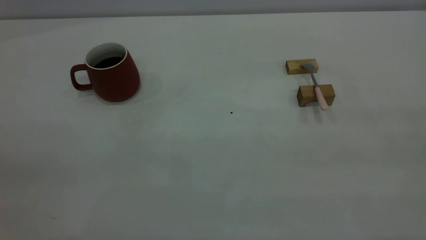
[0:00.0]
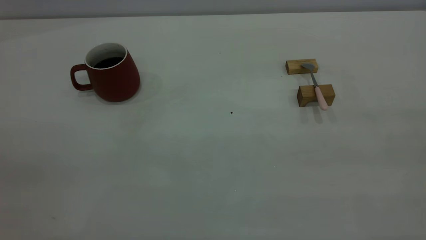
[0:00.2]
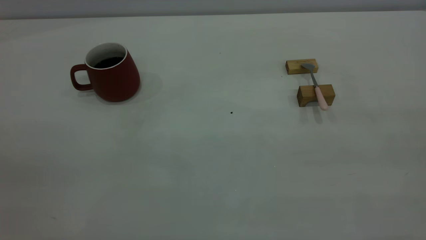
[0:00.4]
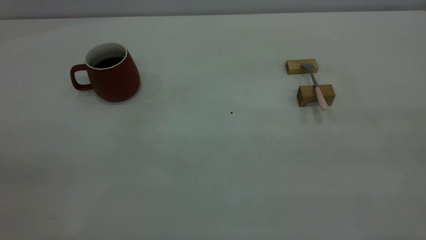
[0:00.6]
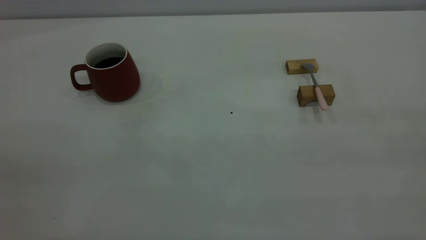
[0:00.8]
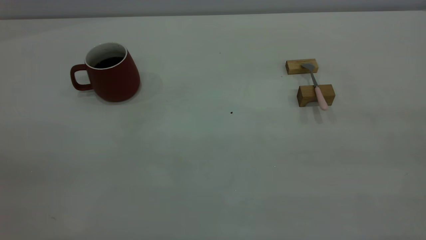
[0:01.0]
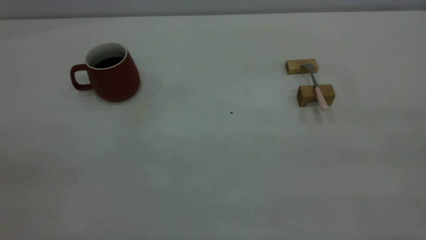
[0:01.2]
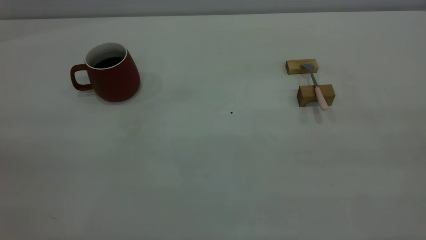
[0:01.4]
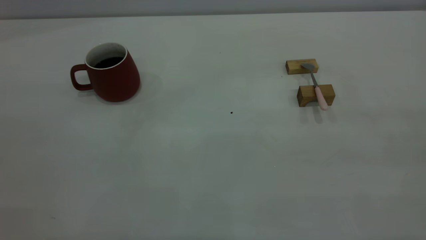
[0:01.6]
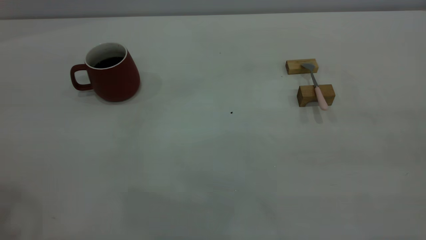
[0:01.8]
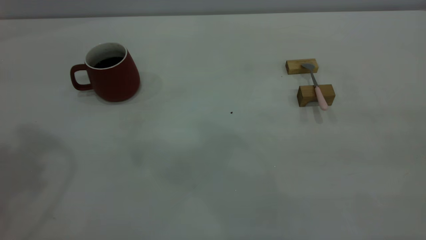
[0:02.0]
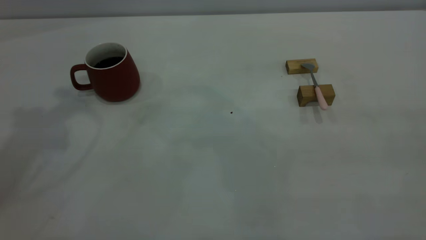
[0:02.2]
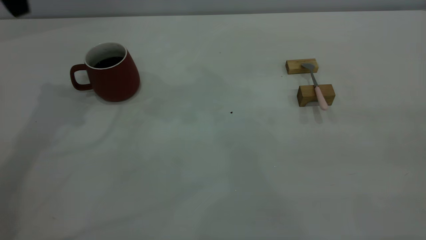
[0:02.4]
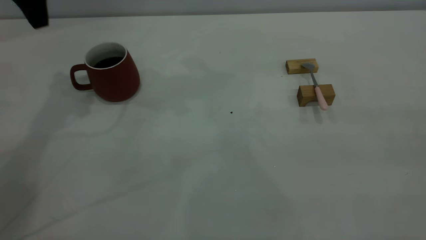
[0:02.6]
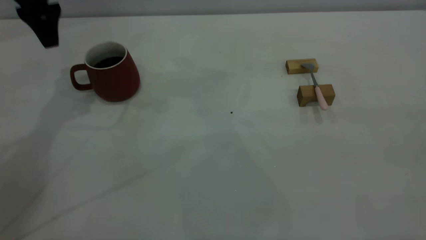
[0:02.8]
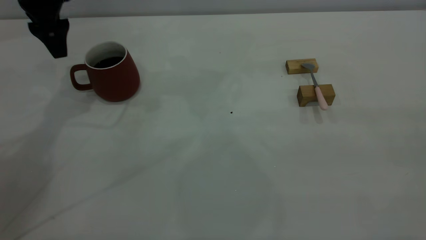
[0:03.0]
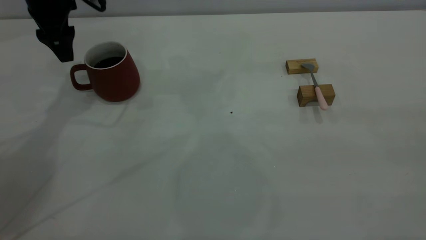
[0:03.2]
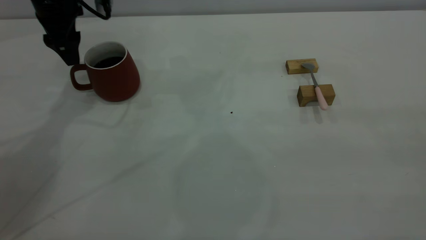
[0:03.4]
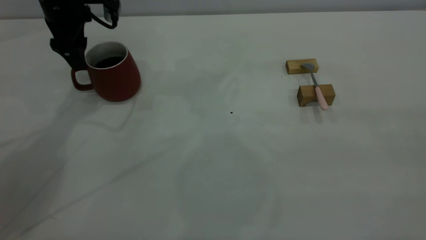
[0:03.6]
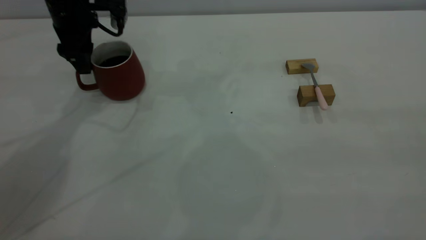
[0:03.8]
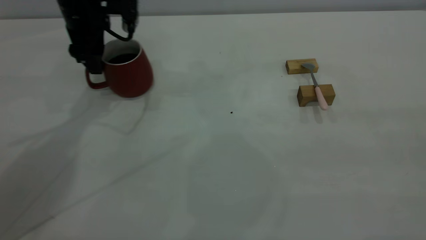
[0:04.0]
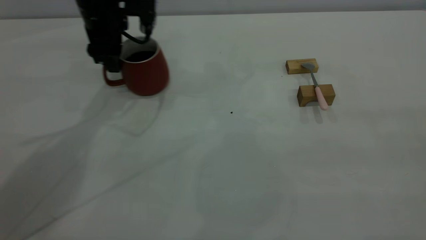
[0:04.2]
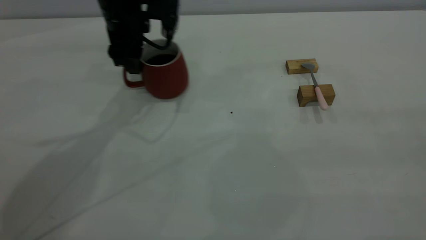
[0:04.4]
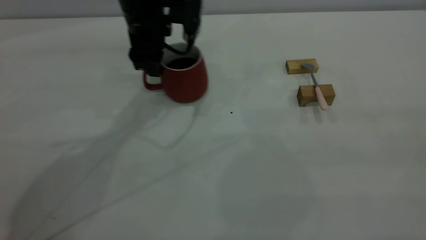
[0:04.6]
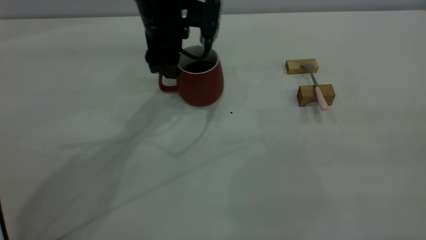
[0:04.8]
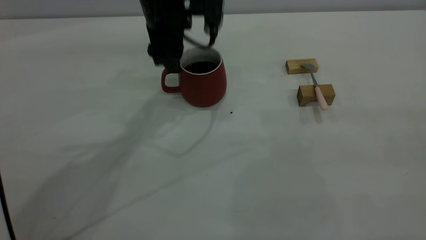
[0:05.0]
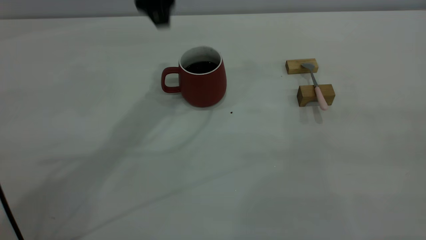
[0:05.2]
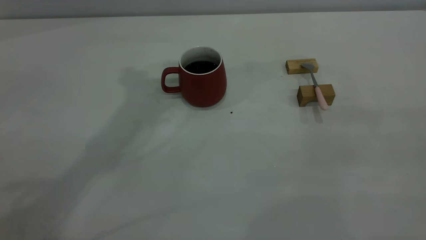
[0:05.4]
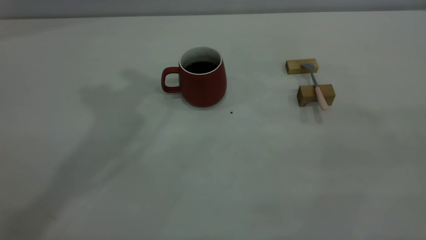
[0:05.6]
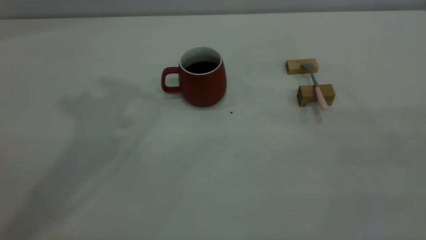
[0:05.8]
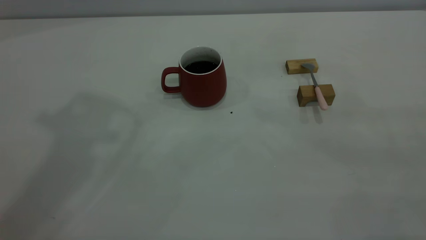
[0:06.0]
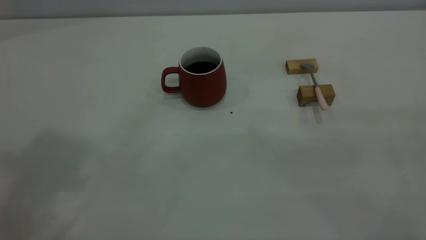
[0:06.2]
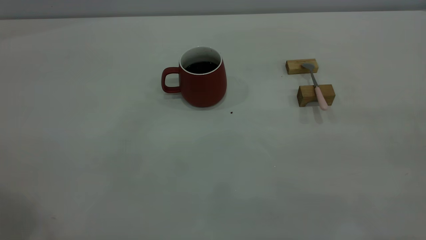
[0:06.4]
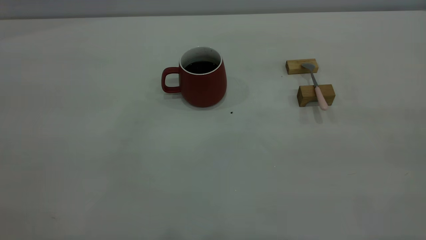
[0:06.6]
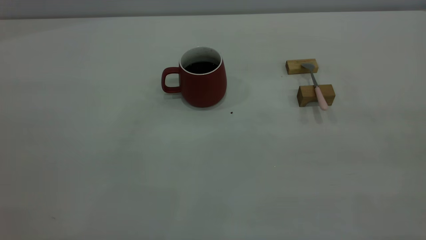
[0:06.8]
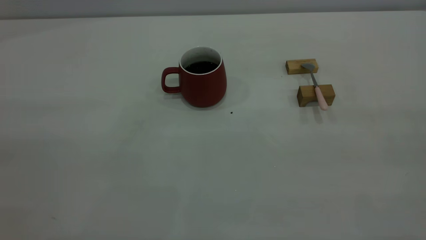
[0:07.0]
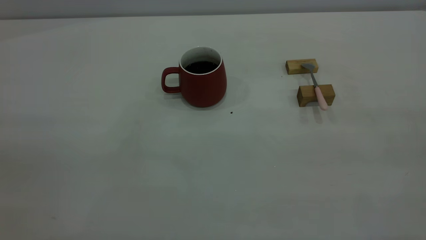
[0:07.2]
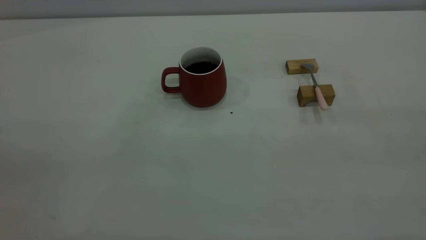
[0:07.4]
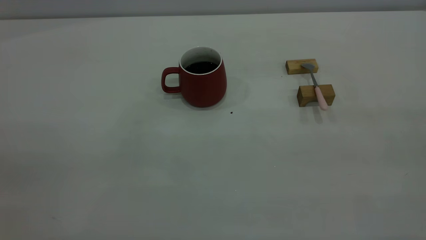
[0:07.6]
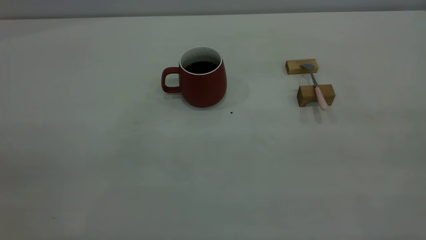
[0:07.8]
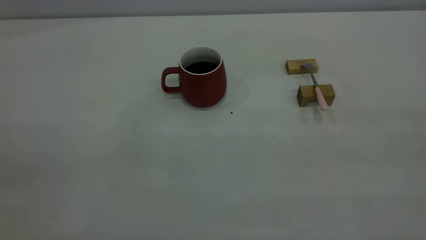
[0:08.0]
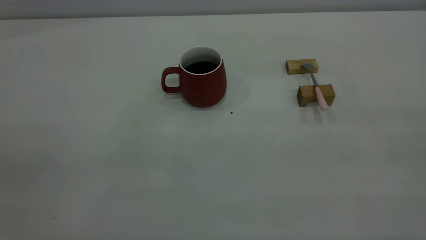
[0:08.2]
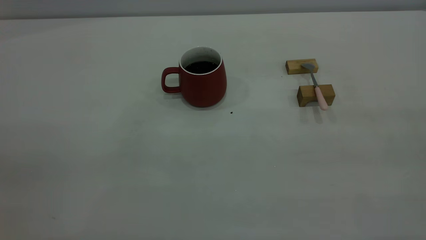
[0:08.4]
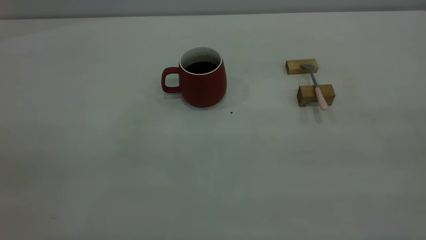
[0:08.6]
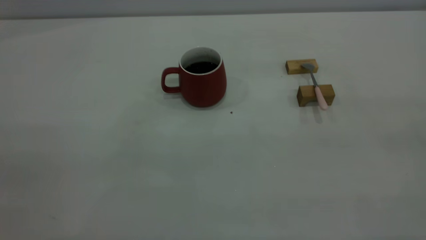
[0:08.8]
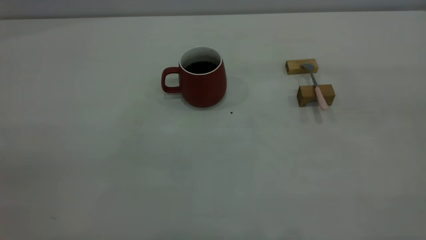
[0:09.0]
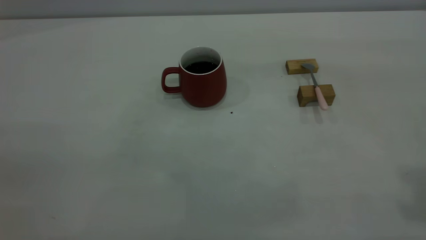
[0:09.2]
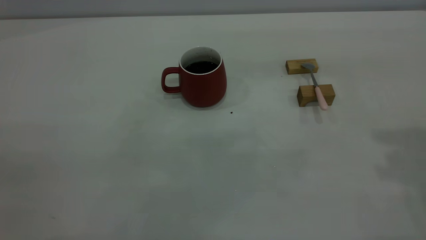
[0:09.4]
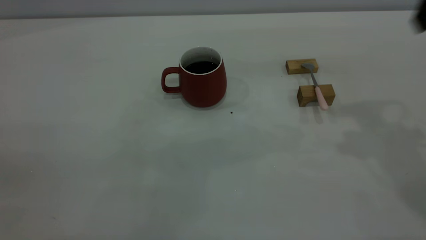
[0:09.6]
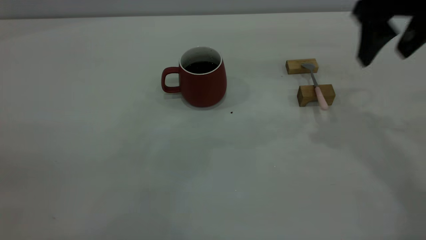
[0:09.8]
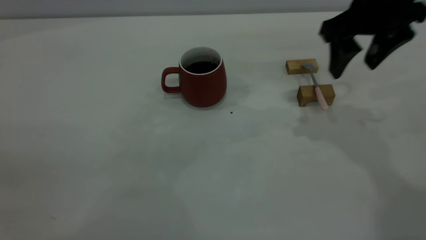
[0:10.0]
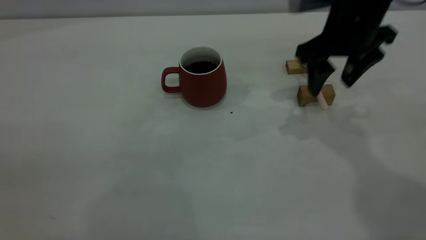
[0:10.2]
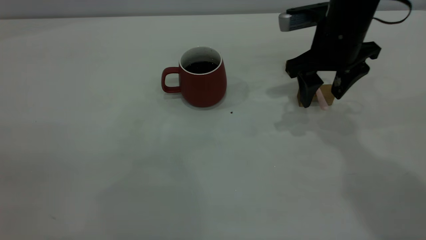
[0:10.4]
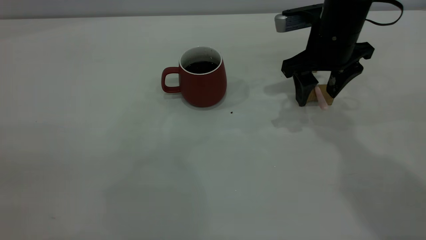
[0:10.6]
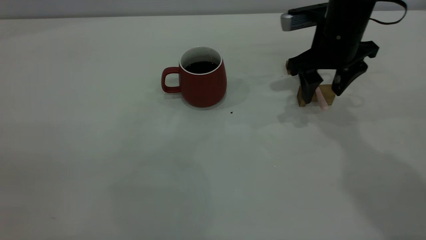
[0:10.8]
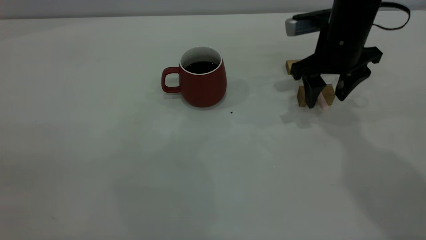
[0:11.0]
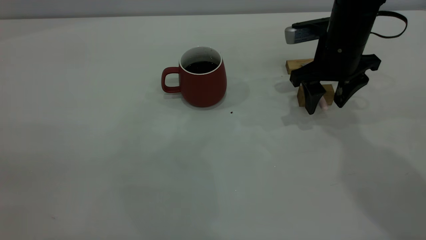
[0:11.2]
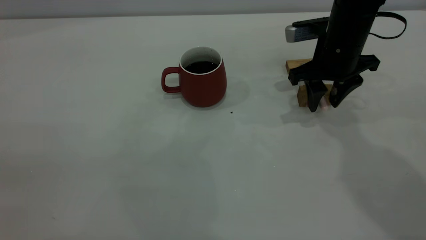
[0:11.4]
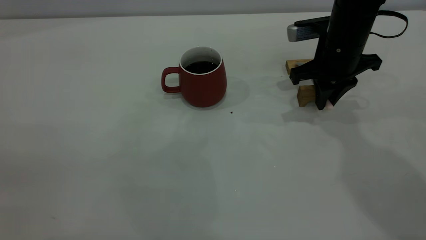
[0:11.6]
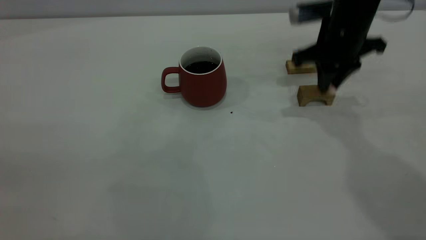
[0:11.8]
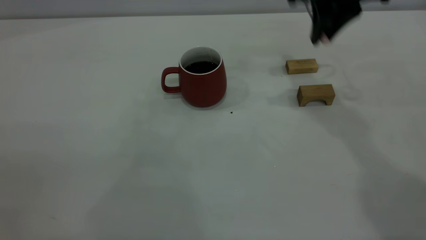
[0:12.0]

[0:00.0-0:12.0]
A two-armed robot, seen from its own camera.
Step, 0:00.0 to 0:05.0: Move the cup with coffee to the center of view.
Step, 0:05.2 to 0:11.6: Pick up the spoon.
0:01.6 to 0:03.0: The left gripper goes some 40 cm forward and downward, and opens its fingers.
0:03.0 to 0:04.4: The left gripper shifts approximately 15 cm to the right.
0:04.4 to 0:06.0: The left gripper goes approximately 40 cm upward and backward.
0:09.0 to 0:10.4: The right gripper moves forward, downward and to the left, roughly 40 cm.
0:10.4 to 0:12.0: The right gripper heads upward, covering some 10 cm, and closes.

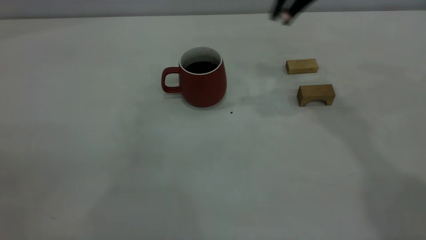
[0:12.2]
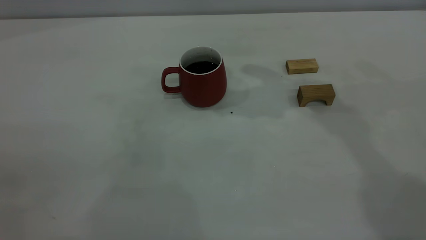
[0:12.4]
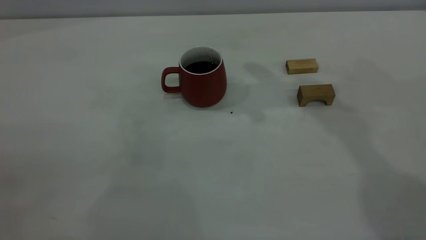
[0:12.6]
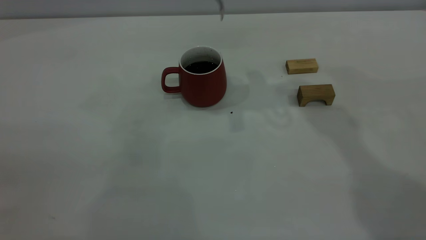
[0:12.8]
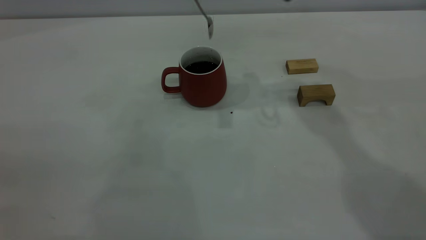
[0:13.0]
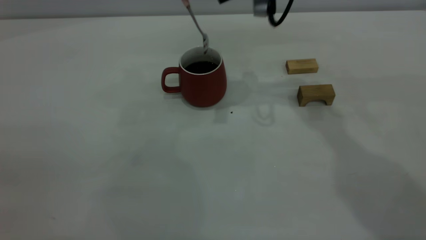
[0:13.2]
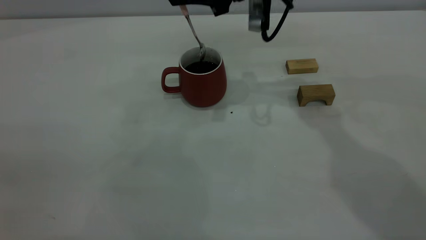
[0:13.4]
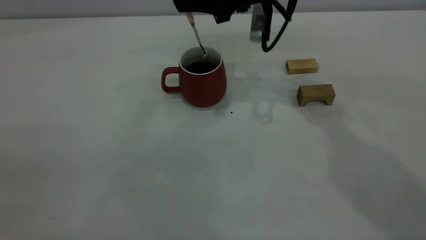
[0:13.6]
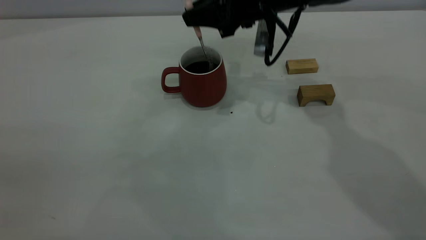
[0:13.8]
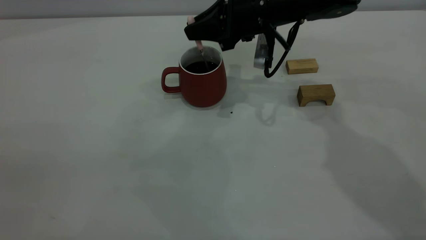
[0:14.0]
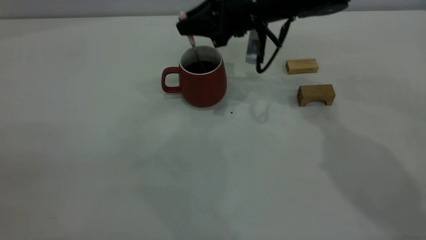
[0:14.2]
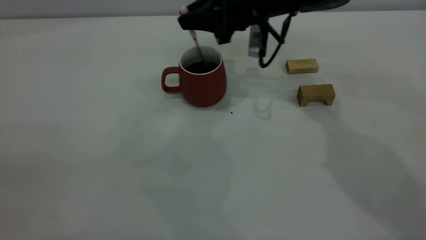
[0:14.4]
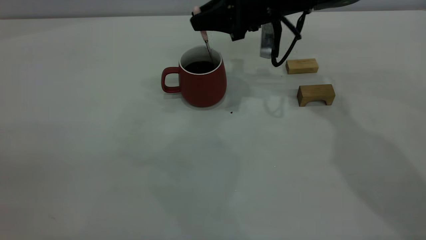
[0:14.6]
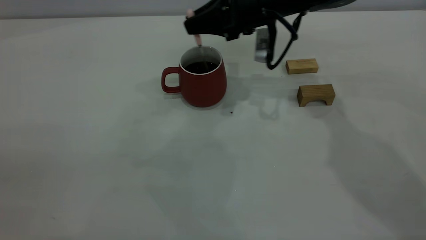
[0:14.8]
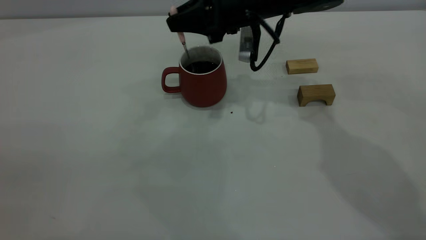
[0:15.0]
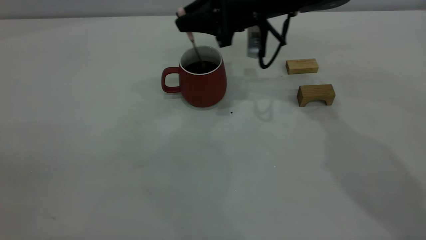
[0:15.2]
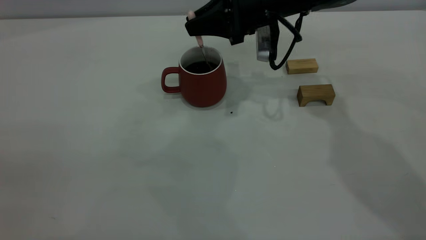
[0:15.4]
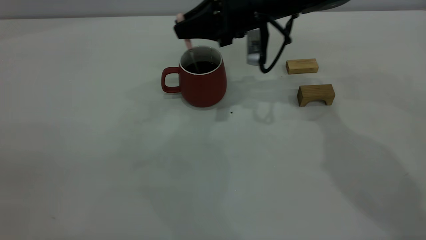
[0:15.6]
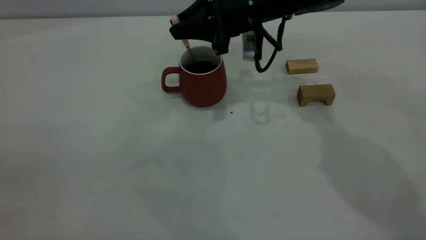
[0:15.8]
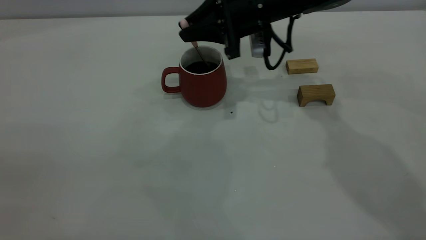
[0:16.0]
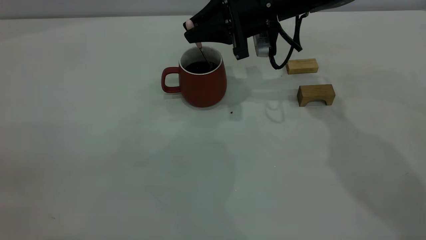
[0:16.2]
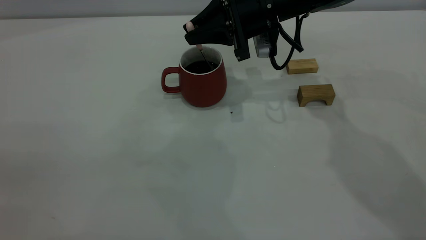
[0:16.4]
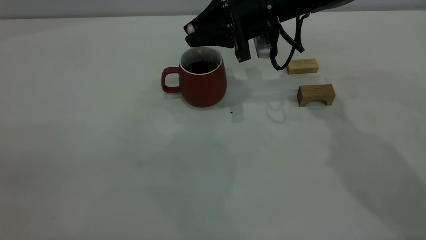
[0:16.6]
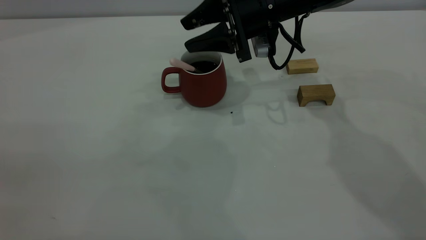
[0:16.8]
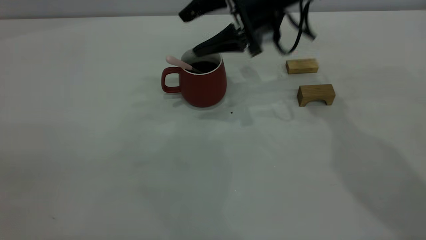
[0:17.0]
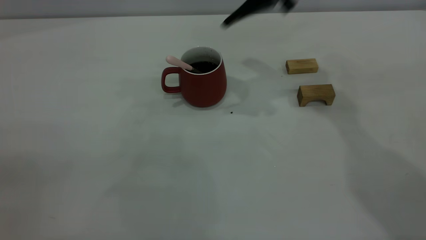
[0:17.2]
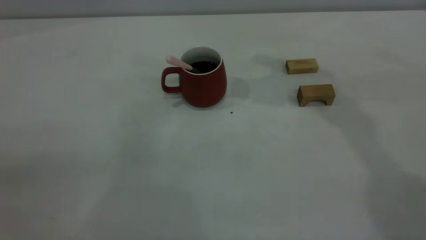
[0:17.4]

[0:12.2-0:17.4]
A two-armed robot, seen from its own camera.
Step, 0:12.2 to 0:17.0: Stir the coffee in the cup.
0:12.2 to 0:14.0: The right gripper goes approximately 15 cm downward.
0:14.0 to 0:15.6: There are only small adjustments of the grippers.
0:15.6 to 0:17.4: The right gripper shifts some 20 cm upward, and opens.
